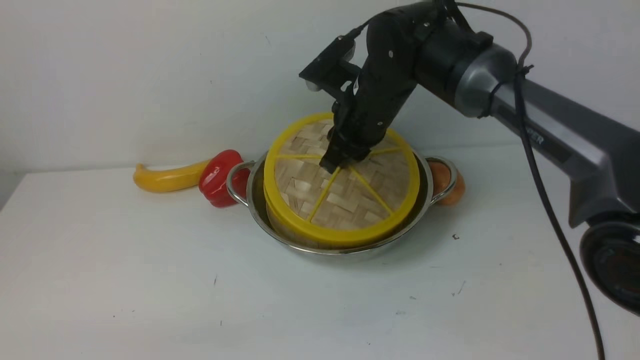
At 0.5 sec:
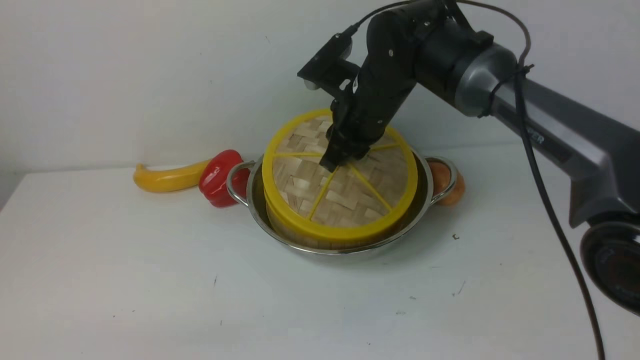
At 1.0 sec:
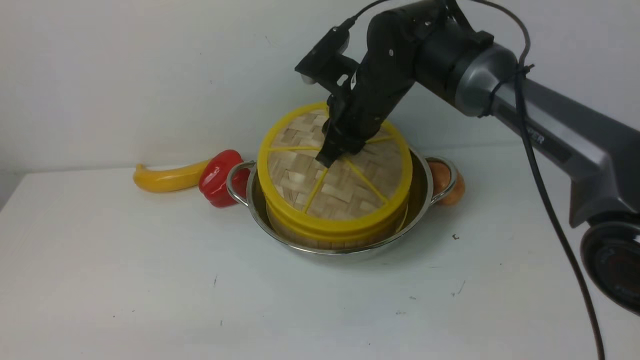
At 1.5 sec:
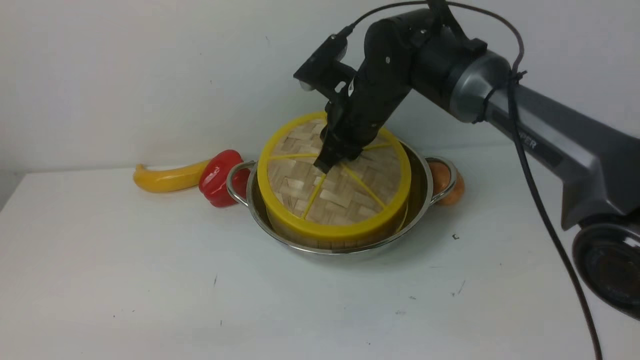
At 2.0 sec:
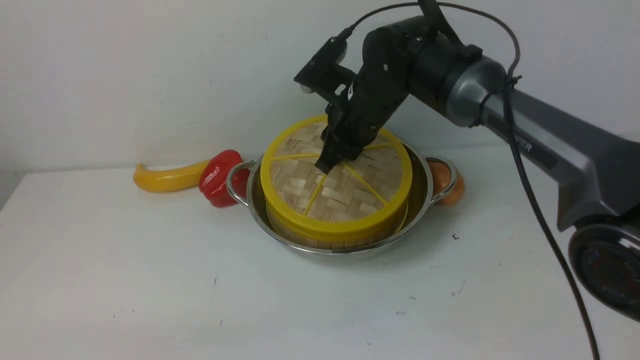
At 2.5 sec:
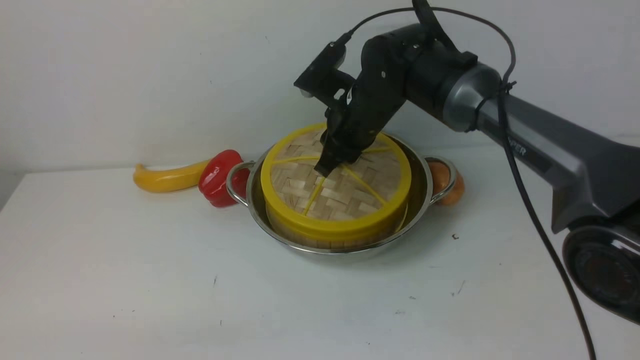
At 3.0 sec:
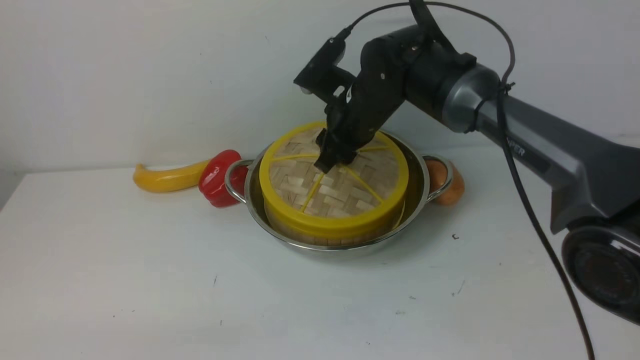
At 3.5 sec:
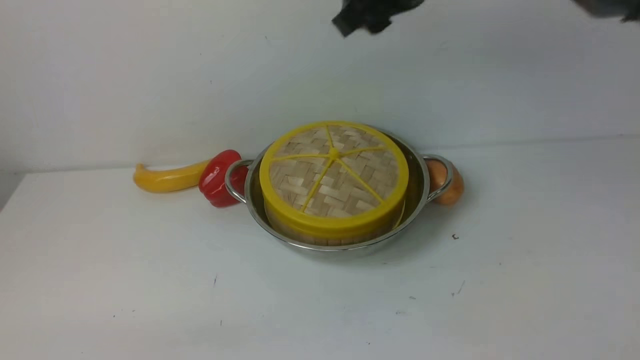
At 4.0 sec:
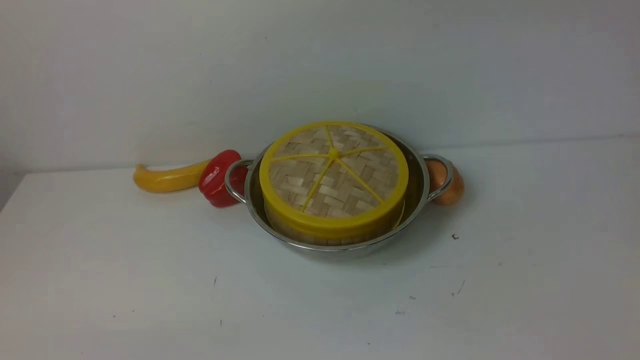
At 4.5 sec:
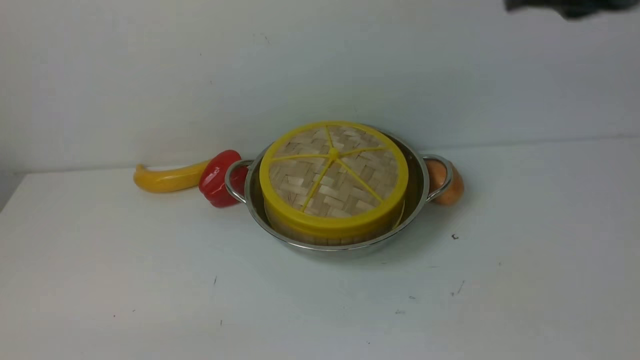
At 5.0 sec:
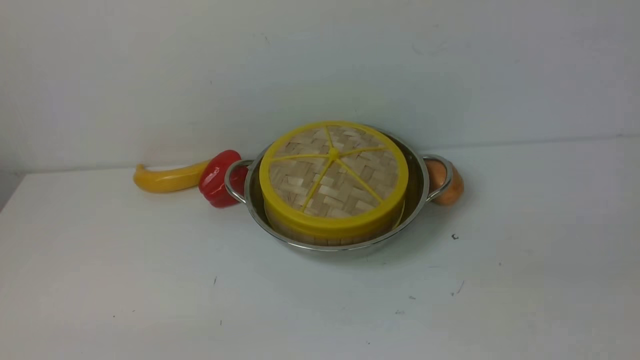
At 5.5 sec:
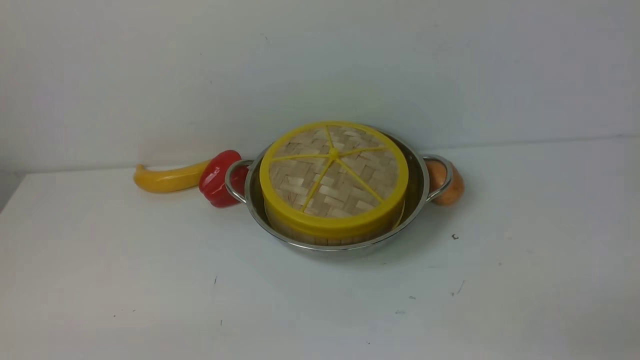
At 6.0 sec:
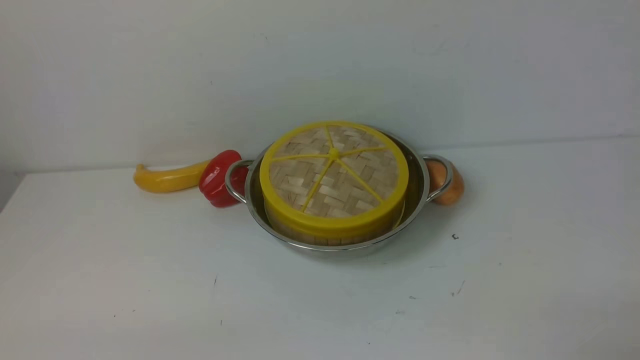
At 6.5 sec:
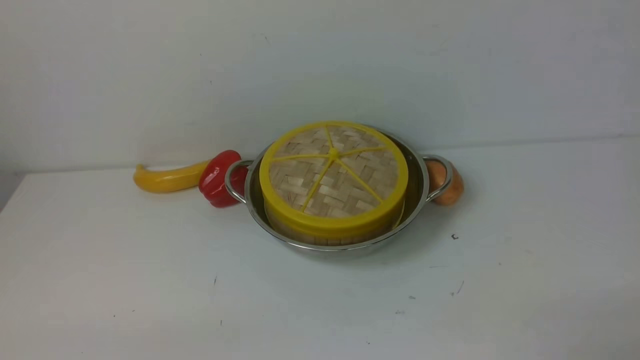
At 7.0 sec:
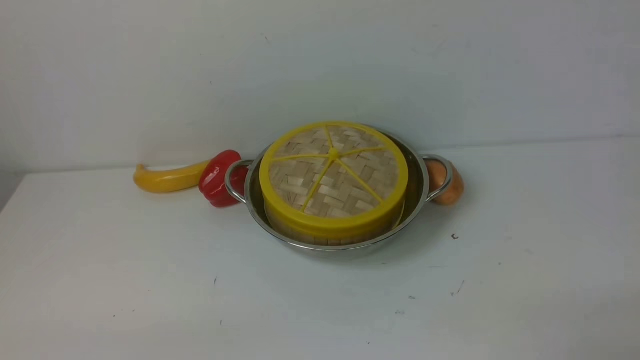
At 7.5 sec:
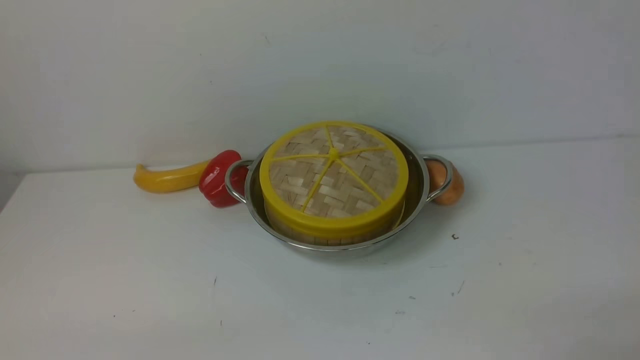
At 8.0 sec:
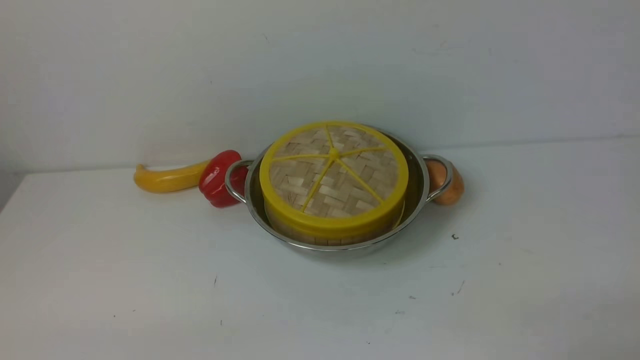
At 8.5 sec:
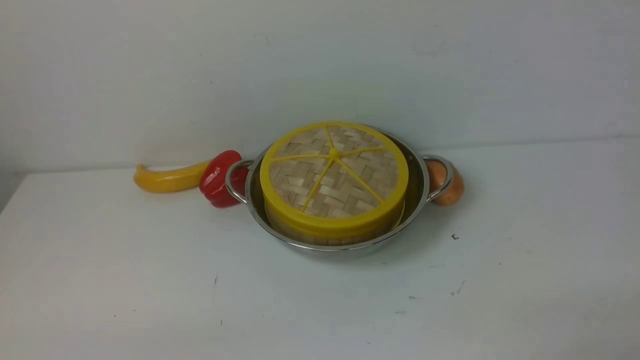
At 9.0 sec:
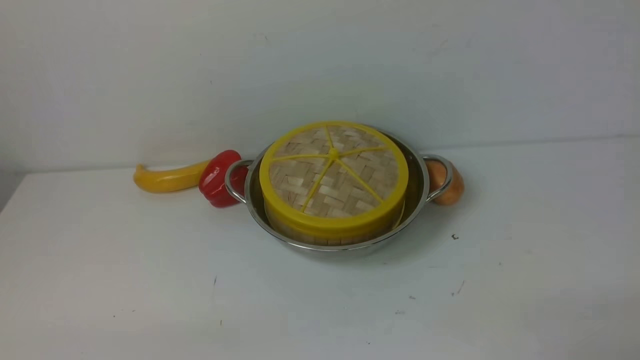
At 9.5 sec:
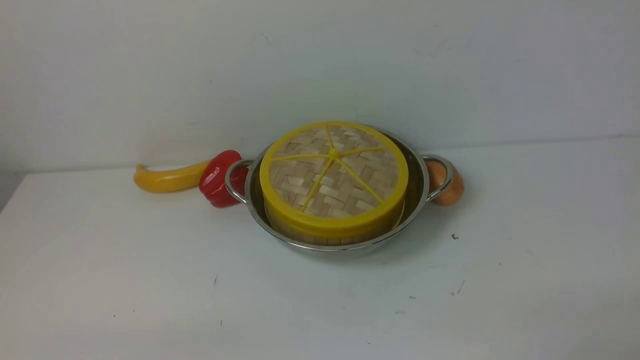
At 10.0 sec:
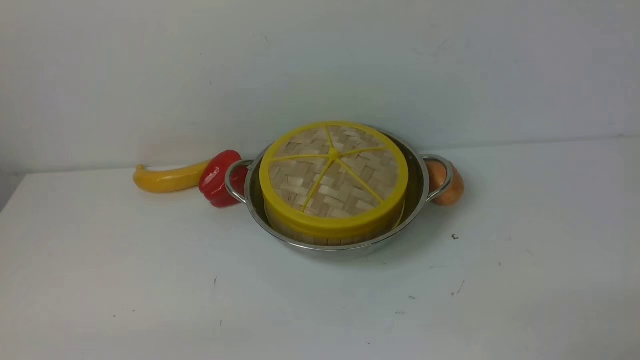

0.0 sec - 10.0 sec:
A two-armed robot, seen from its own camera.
Task of the whole recording: place the steamer in the pot on the white table, and put the lid on the steamer.
Step, 0.0 sec - 3.5 sec: use the right arm to place the steamer lid on the steamer.
0.0 sec - 2.0 sec: The grippers make only small movements.
2.0 sec - 4.0 sec: The right gripper is displaced upward and backward by some 30 cm, and closes.
